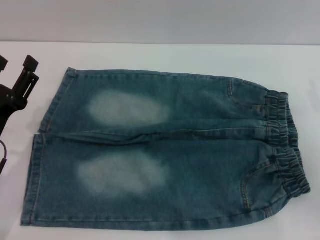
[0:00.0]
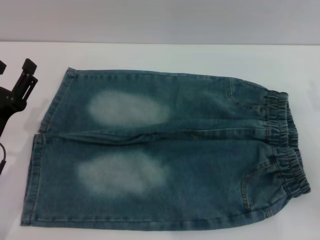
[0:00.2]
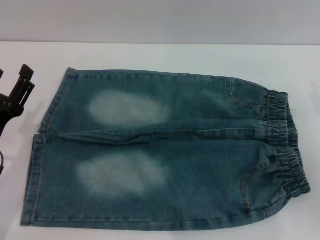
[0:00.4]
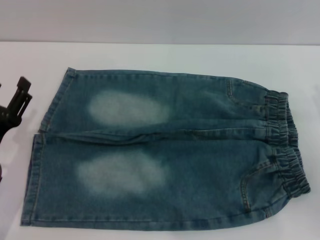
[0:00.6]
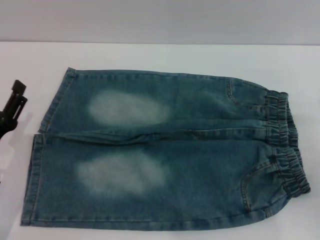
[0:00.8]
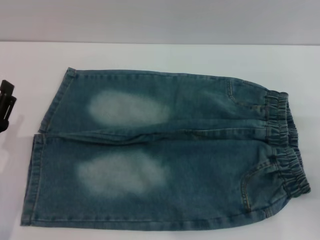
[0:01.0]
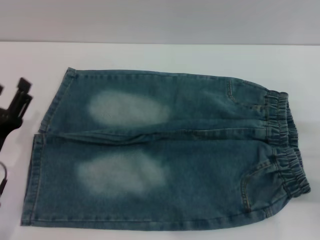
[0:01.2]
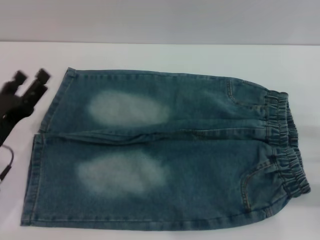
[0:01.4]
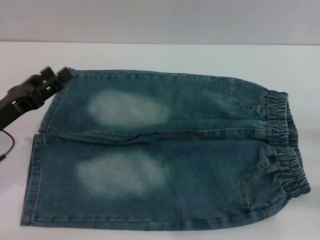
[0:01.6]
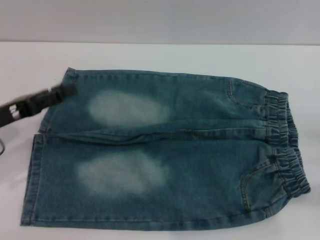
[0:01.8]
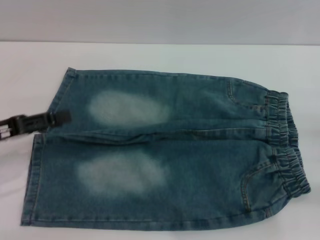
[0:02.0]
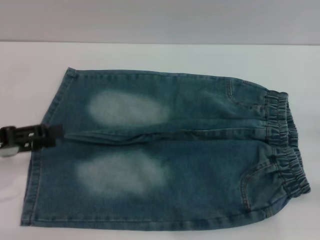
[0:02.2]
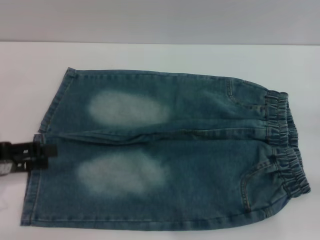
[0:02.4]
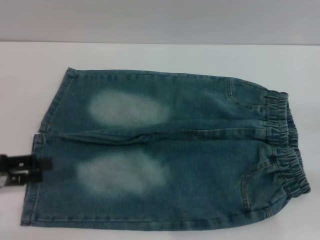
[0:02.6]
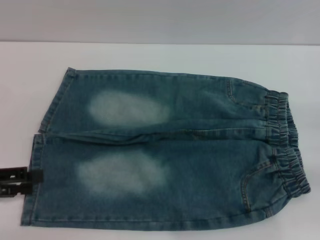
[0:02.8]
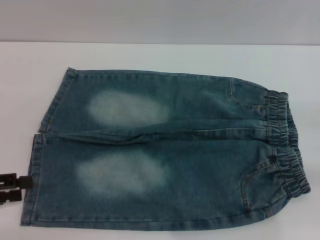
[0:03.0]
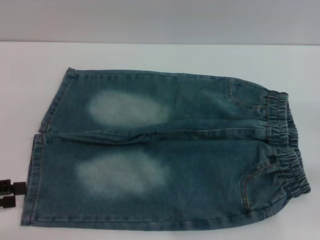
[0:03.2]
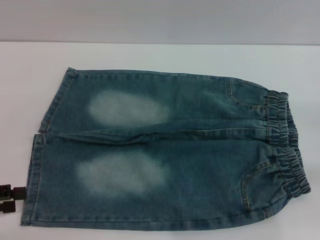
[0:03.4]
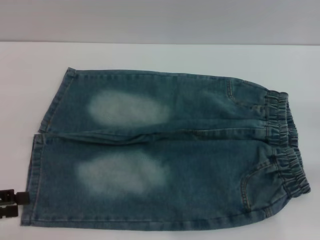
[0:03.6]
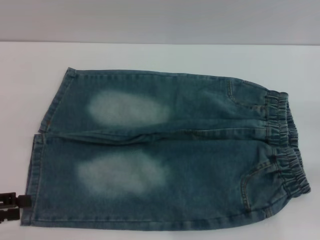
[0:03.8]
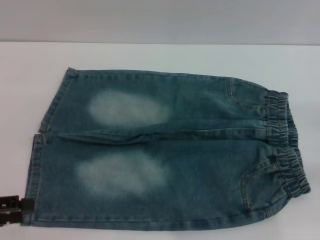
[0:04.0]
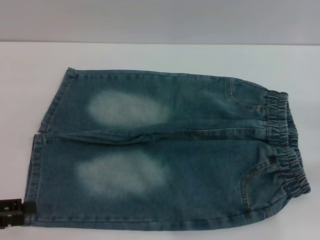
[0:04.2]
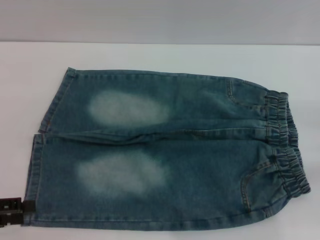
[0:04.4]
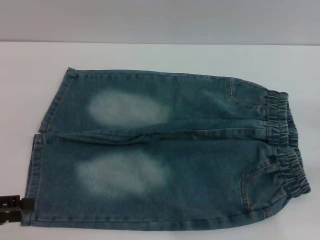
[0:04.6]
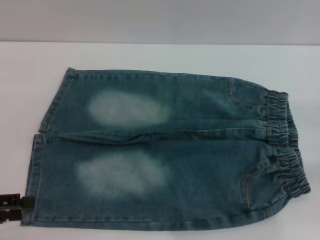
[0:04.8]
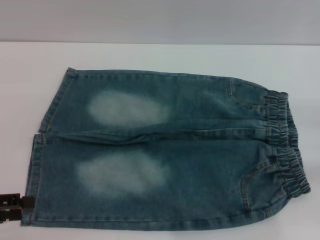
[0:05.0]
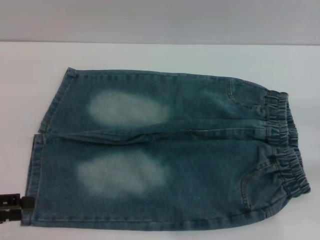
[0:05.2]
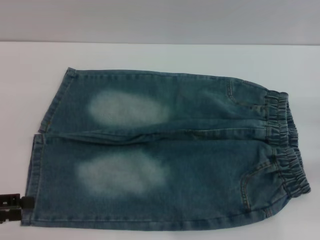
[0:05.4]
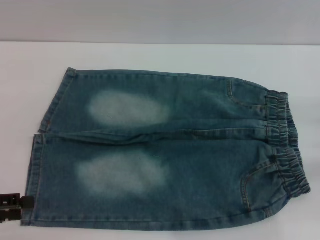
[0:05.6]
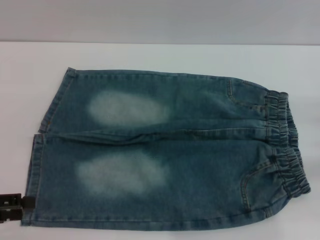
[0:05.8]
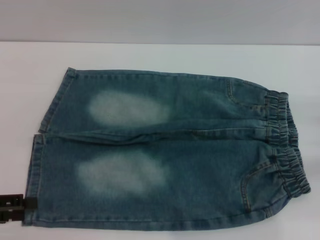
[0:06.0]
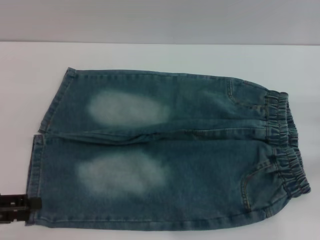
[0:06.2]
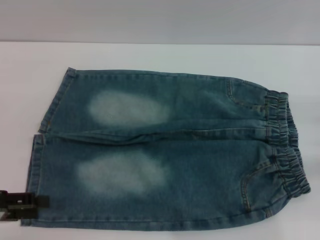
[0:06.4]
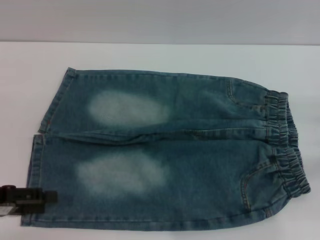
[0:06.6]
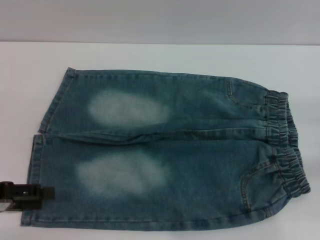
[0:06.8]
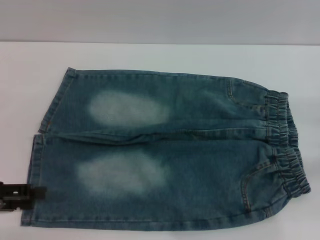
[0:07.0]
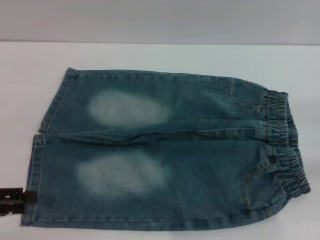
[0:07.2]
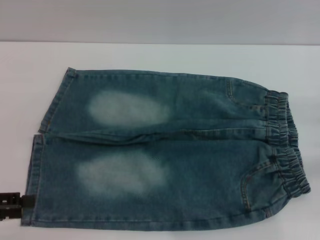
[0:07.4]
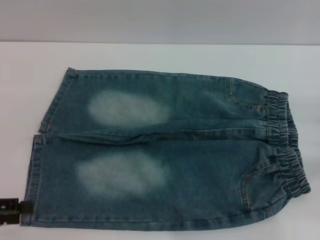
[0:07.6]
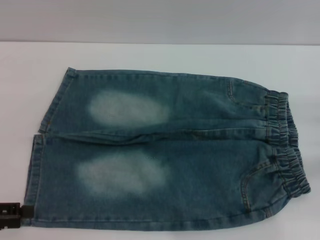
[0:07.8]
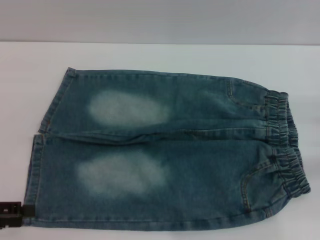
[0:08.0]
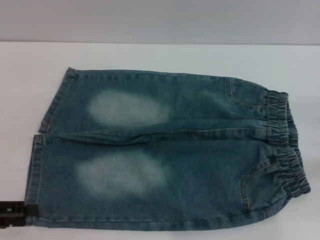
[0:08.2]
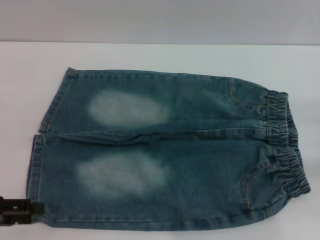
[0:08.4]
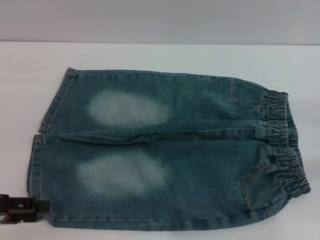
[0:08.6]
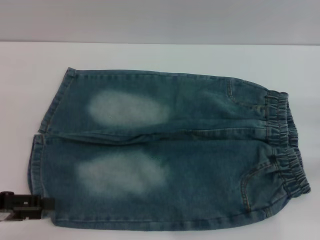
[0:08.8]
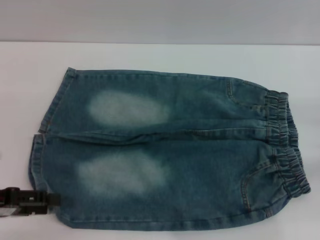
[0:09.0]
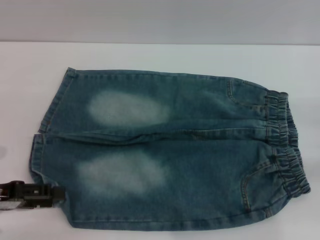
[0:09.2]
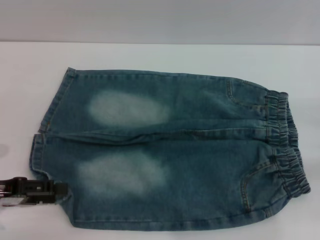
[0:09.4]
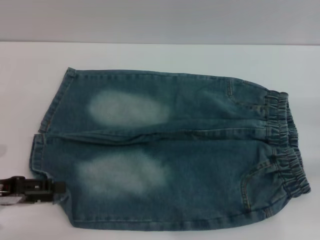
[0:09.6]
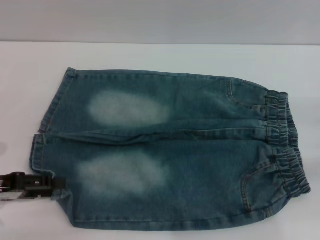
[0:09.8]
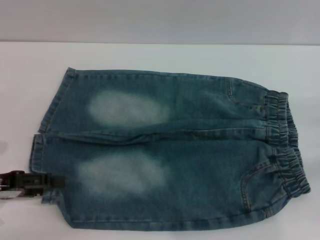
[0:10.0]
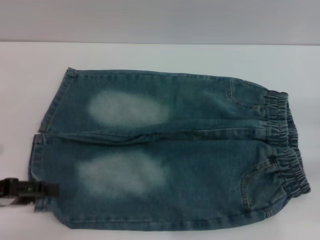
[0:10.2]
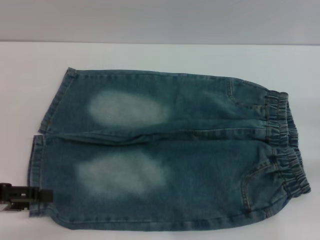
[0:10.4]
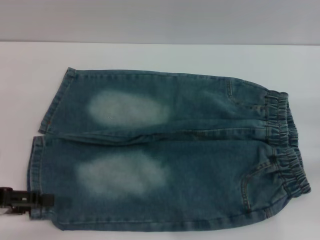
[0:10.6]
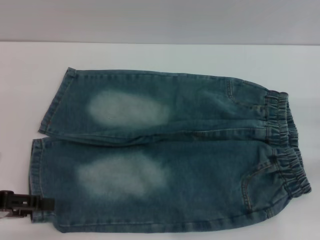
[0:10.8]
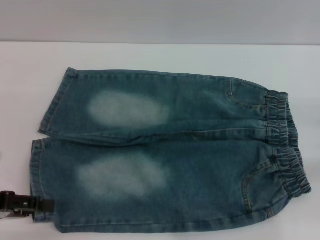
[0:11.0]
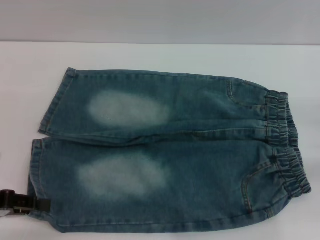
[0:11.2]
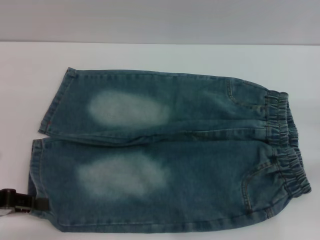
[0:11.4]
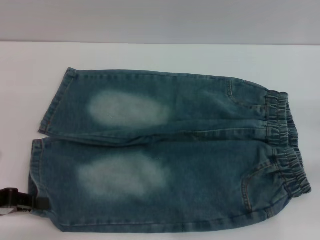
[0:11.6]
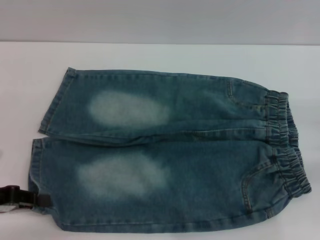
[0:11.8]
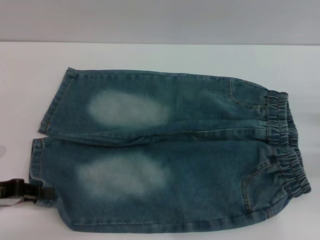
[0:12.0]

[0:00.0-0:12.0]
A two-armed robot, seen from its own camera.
0:00.0 to 0:01.6: The left gripper changes place by roughly 5 cm.
0:01.6 to 0:03.0: The left gripper moves to the left and backward, approximately 10 cm.
0:03.0 to 0:04.4: The grippers move only a little.
0:04.4 to 0:06.0: The two grippers keep their place.
0:07.6 to 0:10.4: The grippers make only small movements.
0:10.4 to 0:12.0: The left gripper closes up.

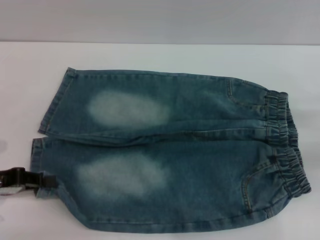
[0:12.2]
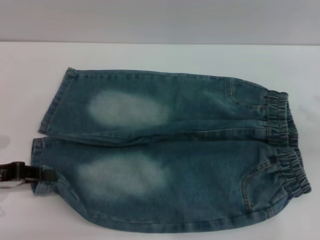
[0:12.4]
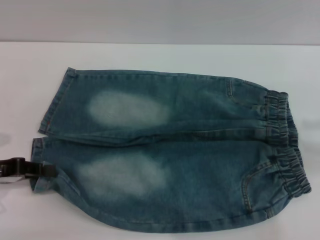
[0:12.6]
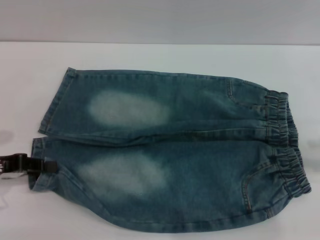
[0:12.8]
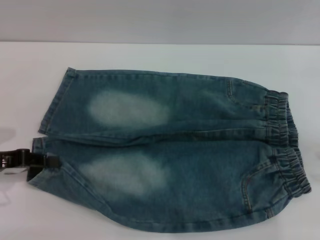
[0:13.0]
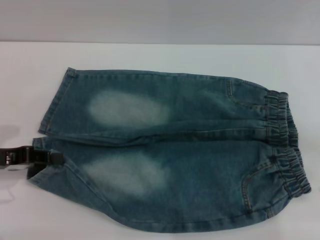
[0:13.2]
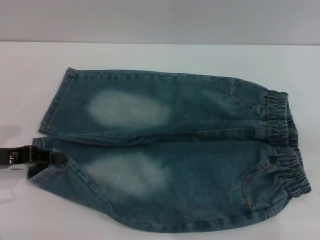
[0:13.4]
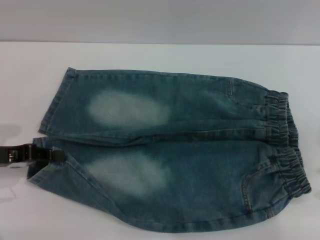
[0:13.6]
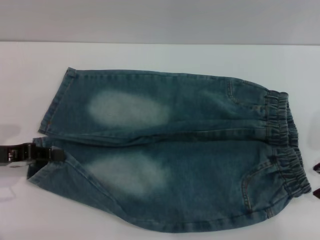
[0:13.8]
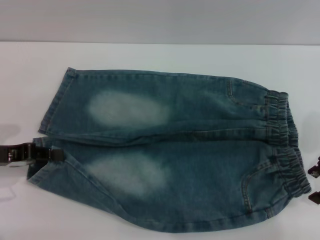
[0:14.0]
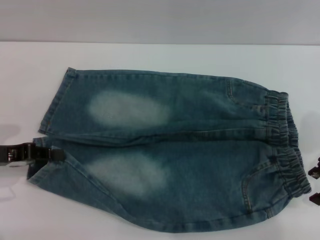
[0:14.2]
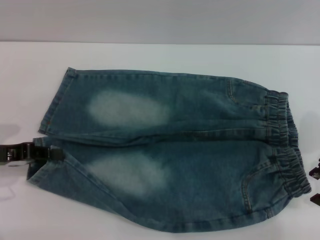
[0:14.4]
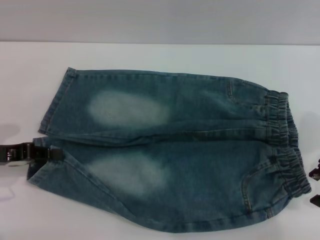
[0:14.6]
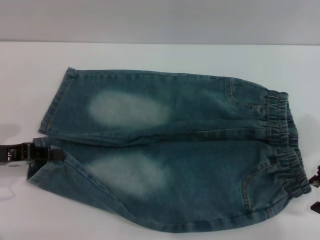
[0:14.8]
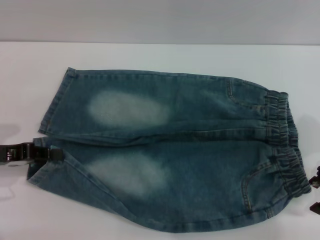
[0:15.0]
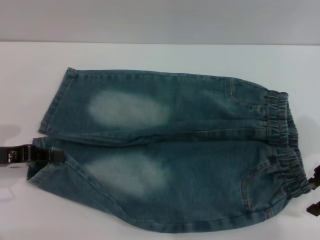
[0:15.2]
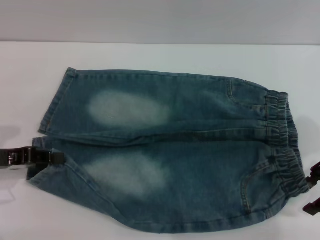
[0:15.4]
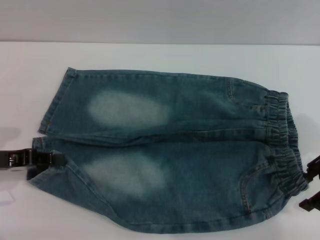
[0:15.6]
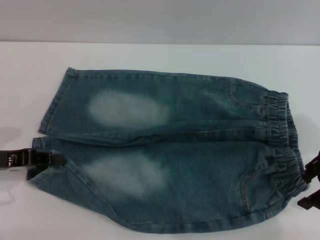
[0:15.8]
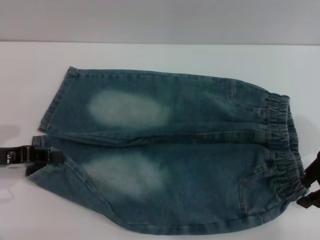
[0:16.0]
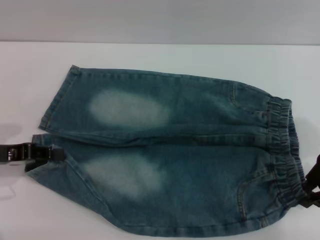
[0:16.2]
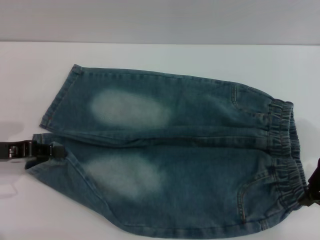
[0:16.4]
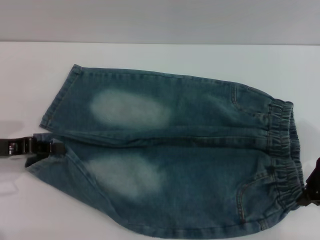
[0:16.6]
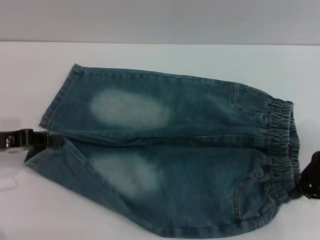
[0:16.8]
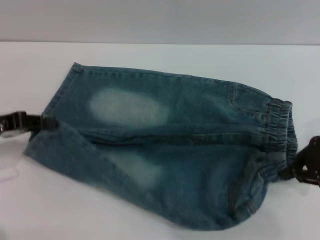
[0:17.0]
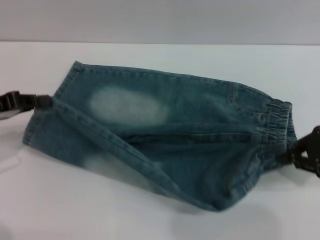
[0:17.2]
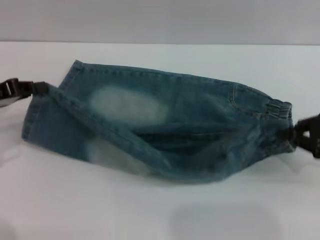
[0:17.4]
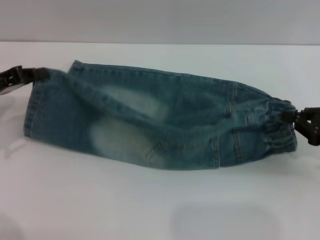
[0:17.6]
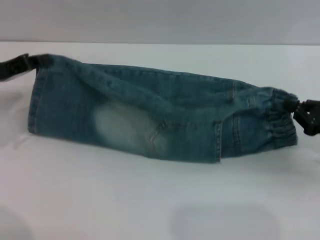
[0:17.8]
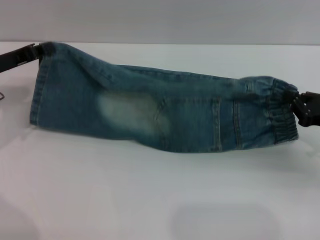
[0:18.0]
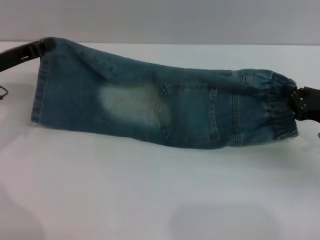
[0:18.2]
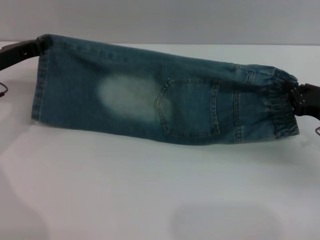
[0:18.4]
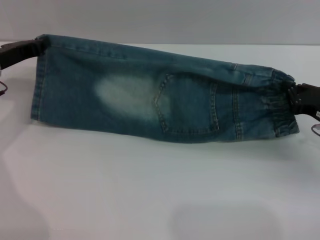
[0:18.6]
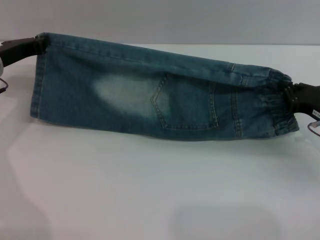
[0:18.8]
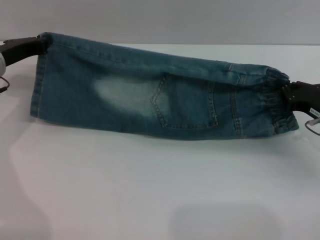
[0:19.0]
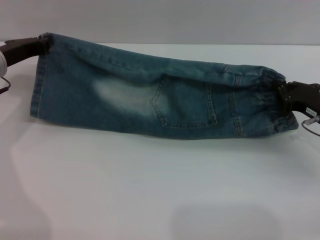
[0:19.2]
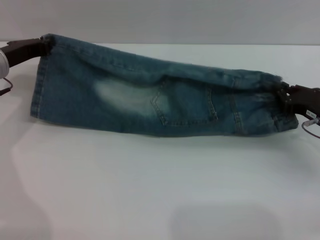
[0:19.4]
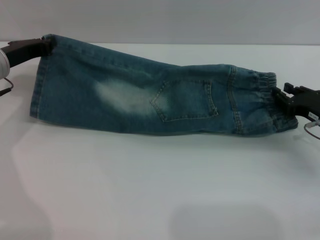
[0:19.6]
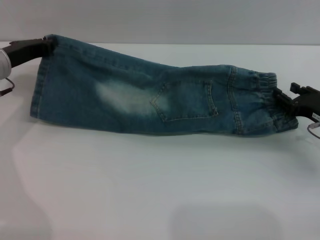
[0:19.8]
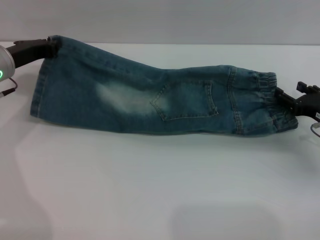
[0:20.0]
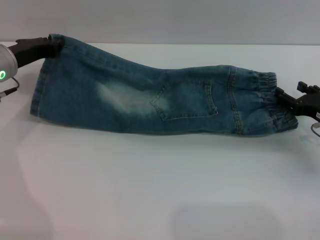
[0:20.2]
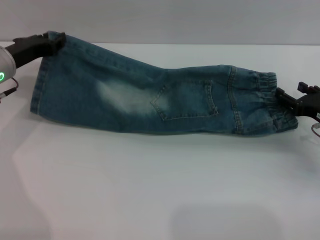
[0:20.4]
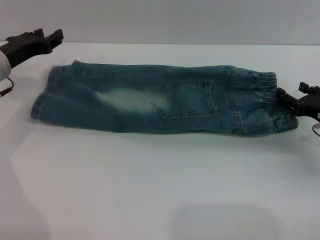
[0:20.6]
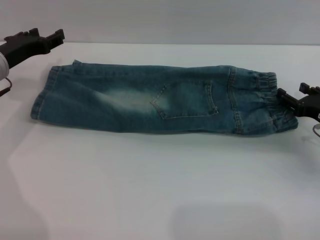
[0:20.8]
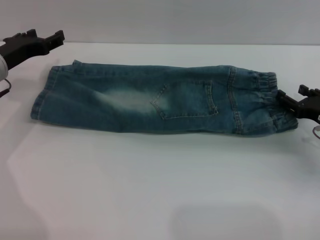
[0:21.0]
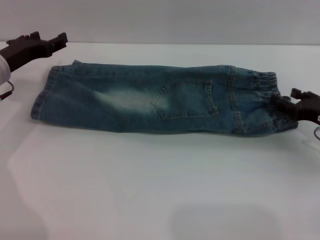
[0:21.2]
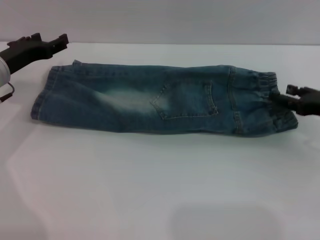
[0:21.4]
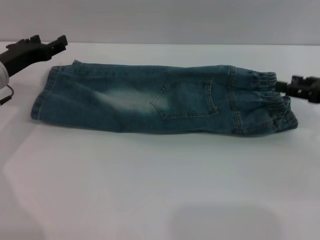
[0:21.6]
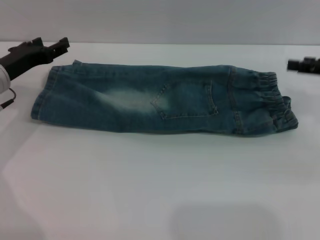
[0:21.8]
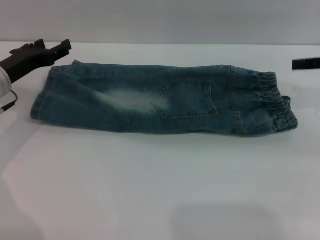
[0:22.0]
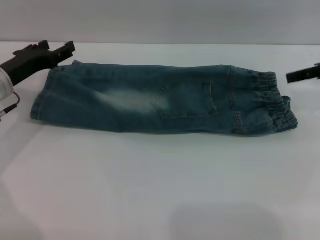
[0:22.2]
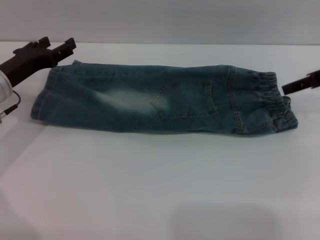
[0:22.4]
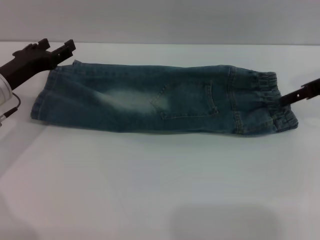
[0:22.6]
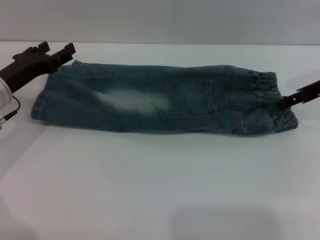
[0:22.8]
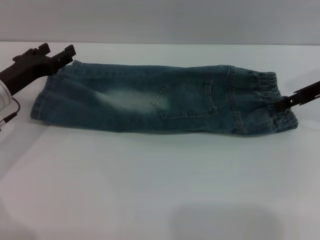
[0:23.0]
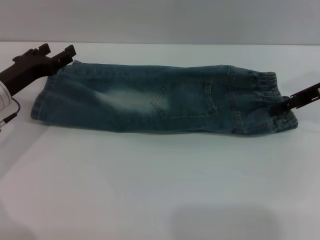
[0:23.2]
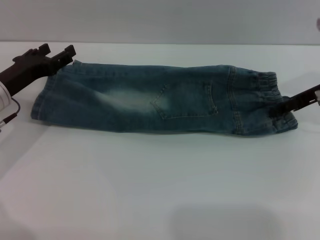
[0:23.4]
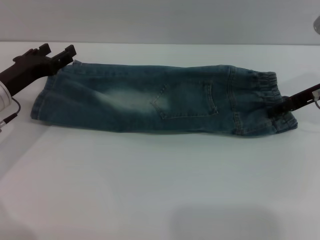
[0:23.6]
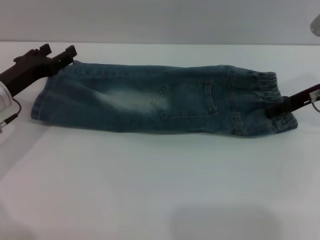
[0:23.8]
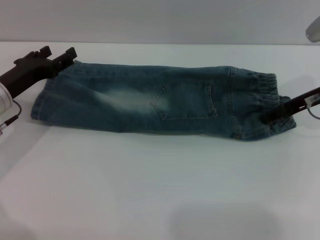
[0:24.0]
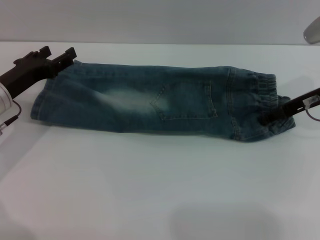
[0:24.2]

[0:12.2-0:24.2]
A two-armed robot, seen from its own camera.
Step, 0:12.2 to 0:20.4: Fold the bottom of the pants upward with both grippers.
0:12.2 to 0:13.8: The right gripper is displaced to the left and upward by roughly 10 cm.
0:13.8 to 0:15.2: The grippers move only a little.
0:15.2 to 0:16.6: The right gripper closes.
0:16.6 to 0:18.2: The right gripper heads downward, covering about 10 cm, while the left gripper travels forward by some 10 cm.
0:18.2 to 0:19.8: The right gripper opens.
0:19.8 to 0:21.2: The right gripper opens its fingers; the left gripper opens its fingers.
0:21.2 to 0:22.6: The right gripper shifts about 15 cm upward and forward.
0:22.6 to 0:24.2: The right gripper moves approximately 5 cm.
